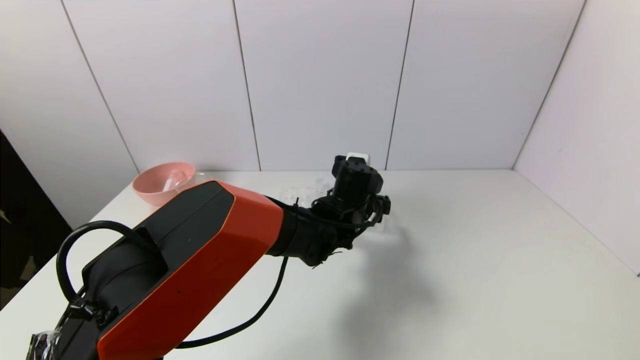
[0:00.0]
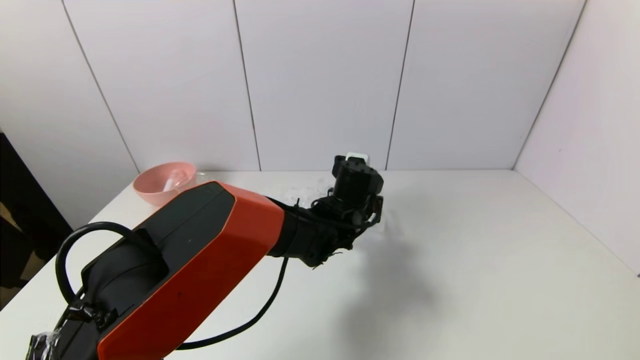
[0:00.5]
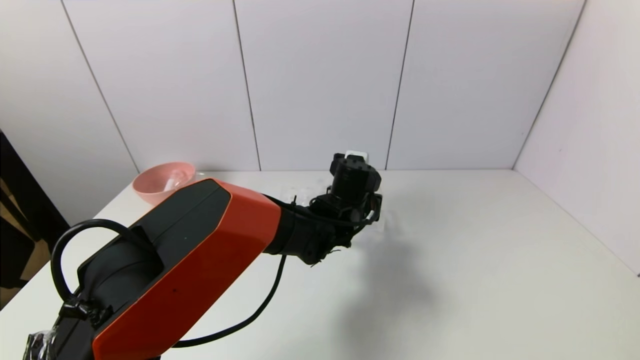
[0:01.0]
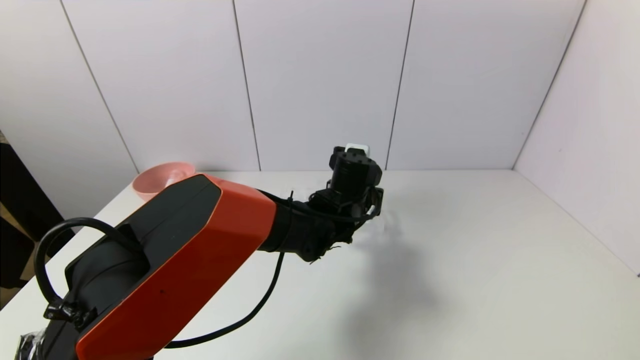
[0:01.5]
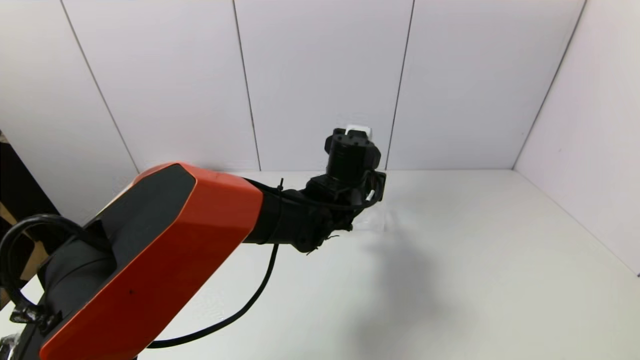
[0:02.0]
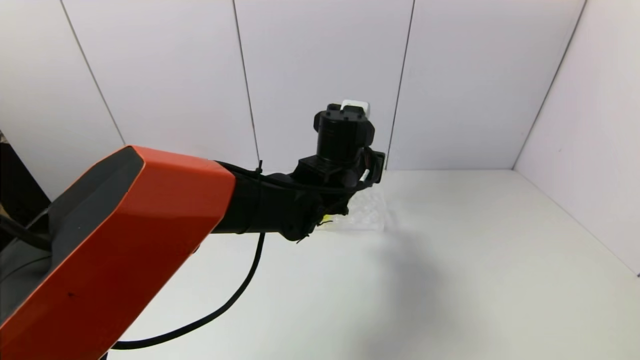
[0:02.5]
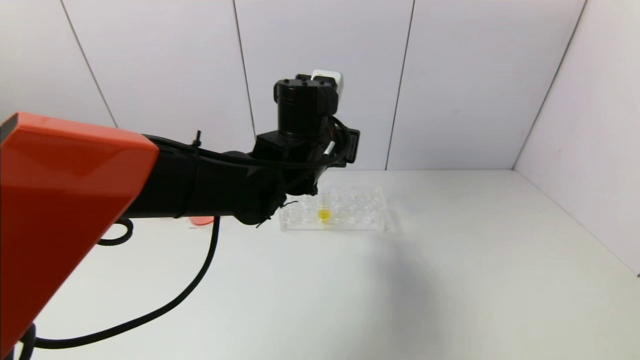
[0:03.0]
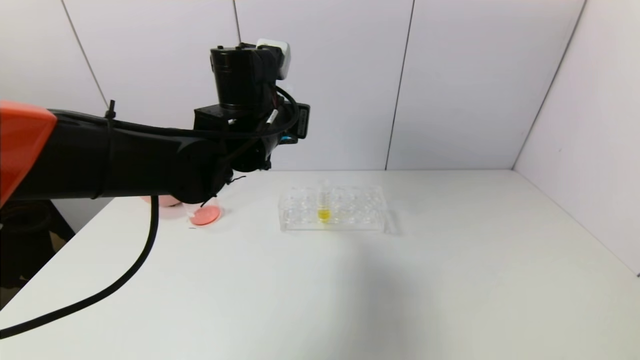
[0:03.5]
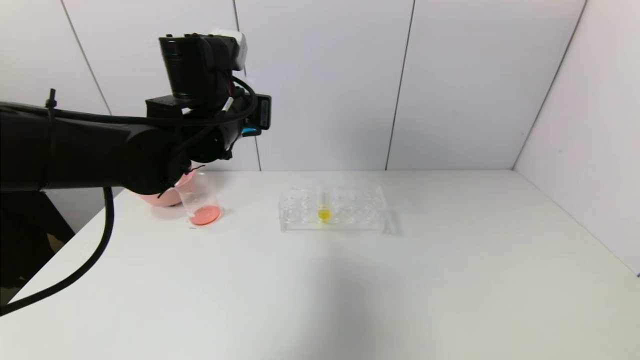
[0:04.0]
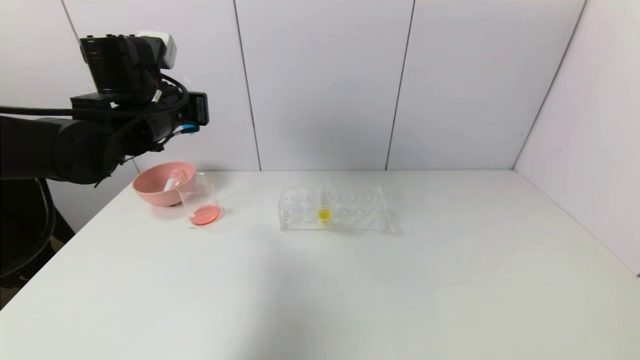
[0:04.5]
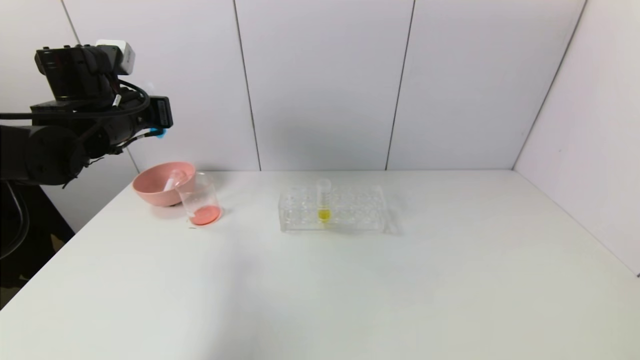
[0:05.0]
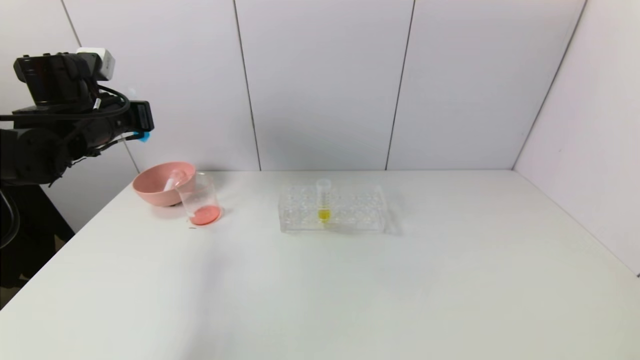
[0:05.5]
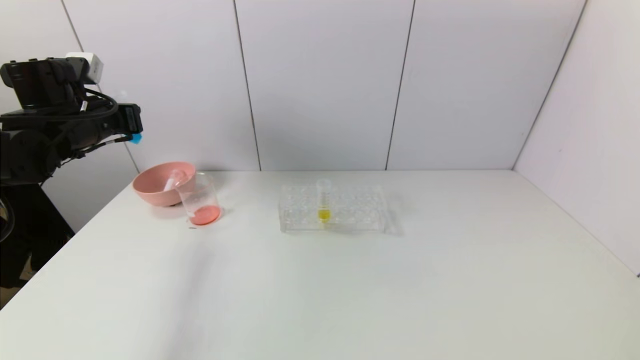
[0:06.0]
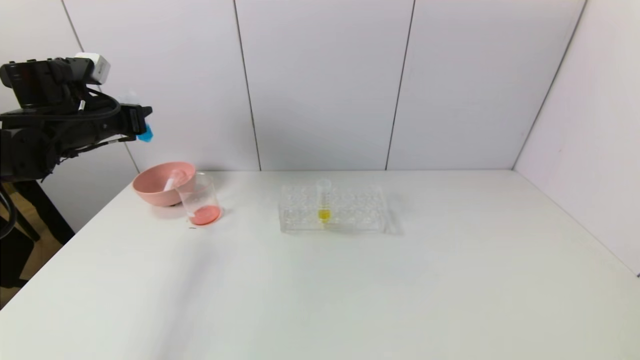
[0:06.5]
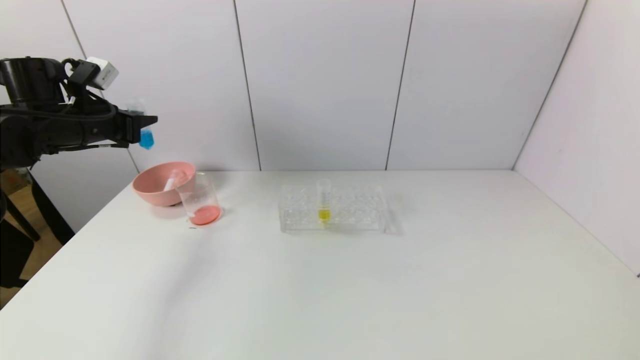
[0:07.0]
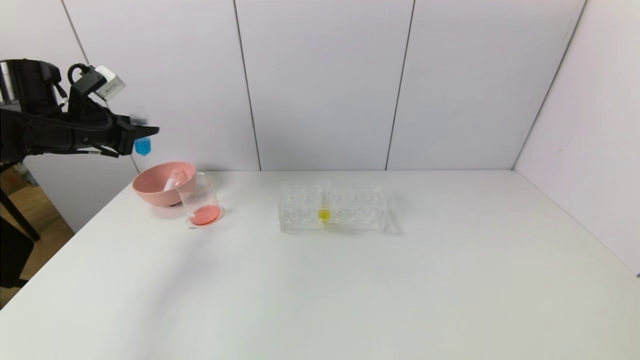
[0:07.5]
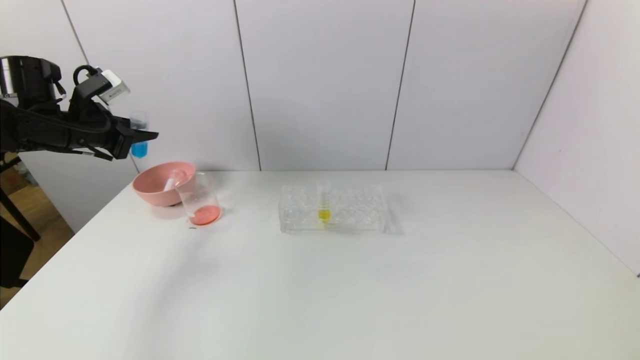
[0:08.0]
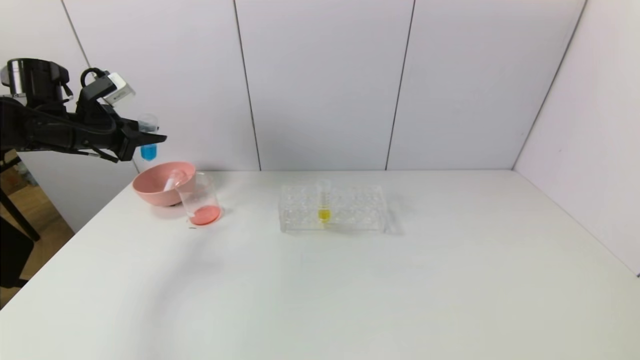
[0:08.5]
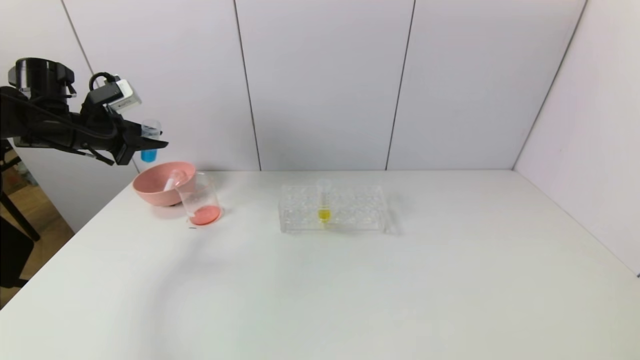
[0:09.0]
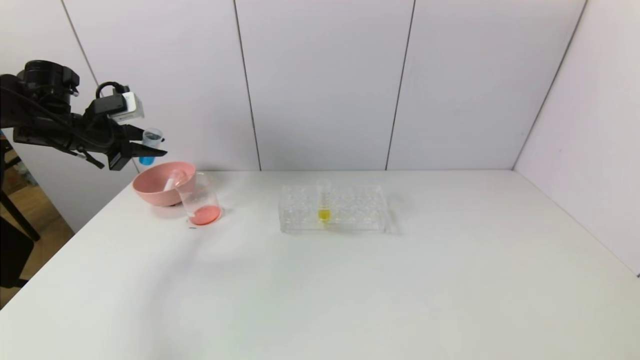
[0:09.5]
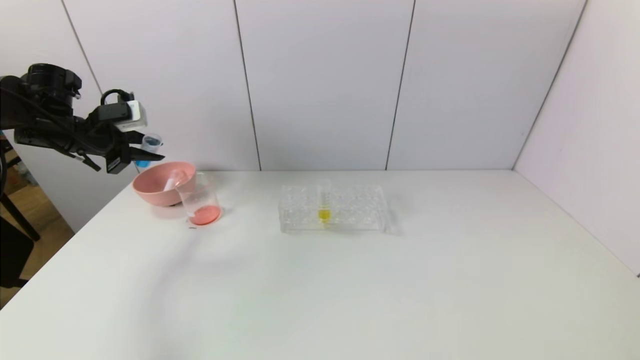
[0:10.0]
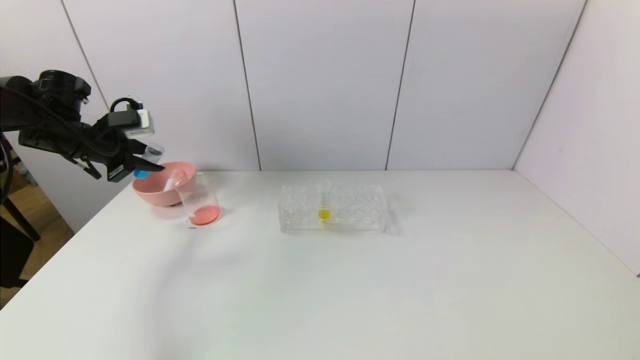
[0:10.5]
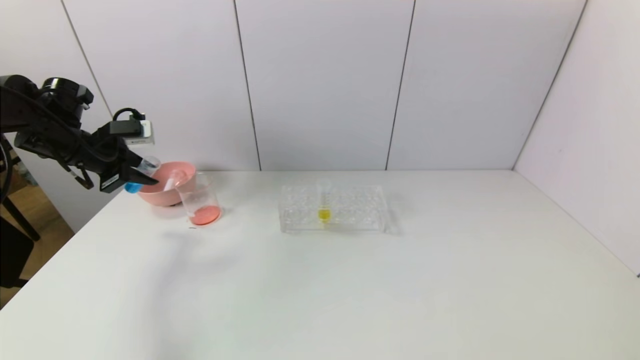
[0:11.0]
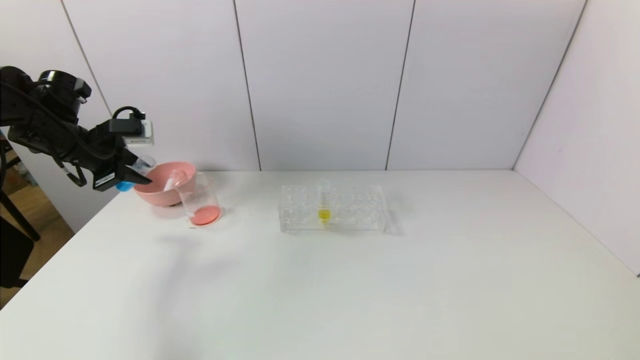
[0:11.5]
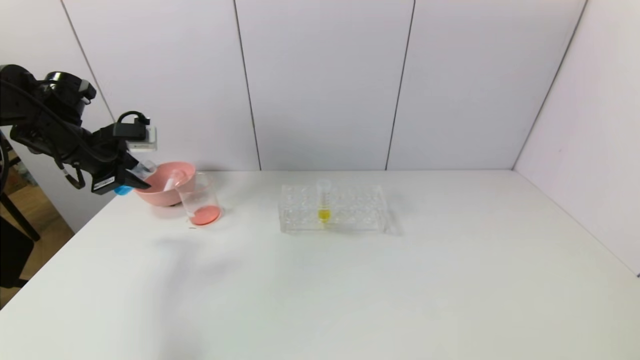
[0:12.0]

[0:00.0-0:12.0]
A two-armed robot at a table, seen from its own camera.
Task of the whole recording: pick up the test tube with red pigment and the test tube with blue pigment by grippers and pour them into the container.
0:00.0 to 0:02.0: The left gripper travels upward by about 5 cm, and closes its fingers.
0:02.0 to 0:04.0: The left gripper shifts roughly 20 cm to the left and upward.
0:04.0 to 0:06.0: The left gripper goes roughly 20 cm to the left.

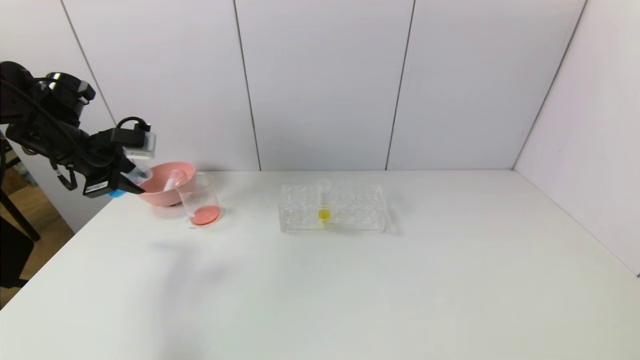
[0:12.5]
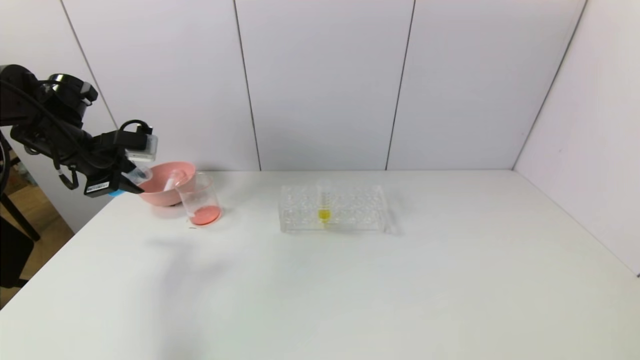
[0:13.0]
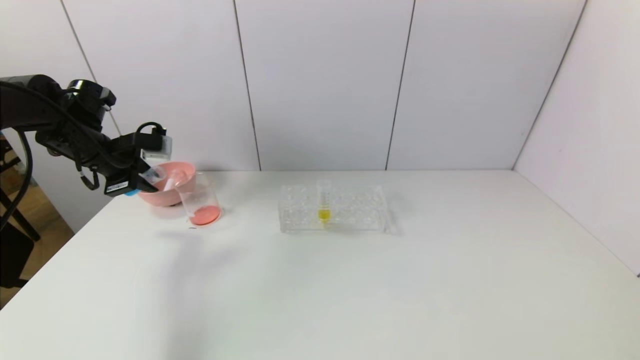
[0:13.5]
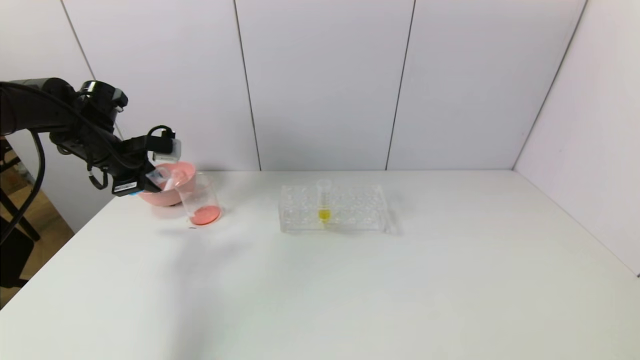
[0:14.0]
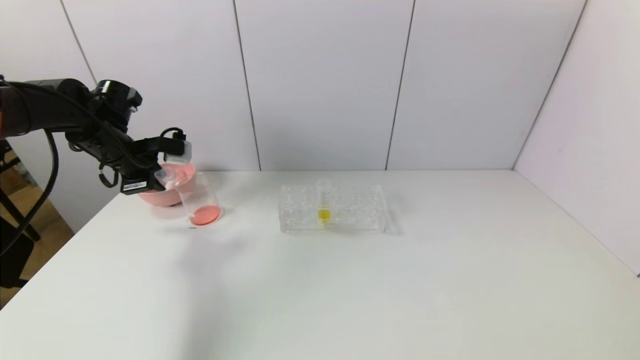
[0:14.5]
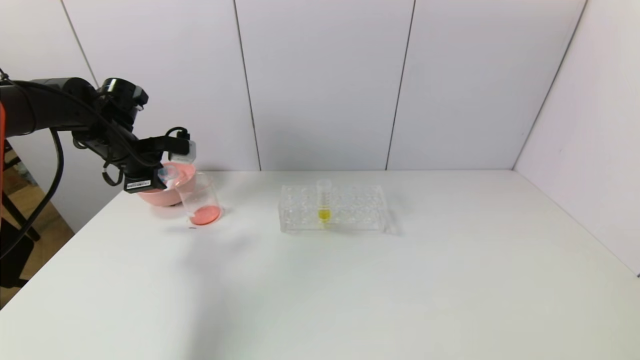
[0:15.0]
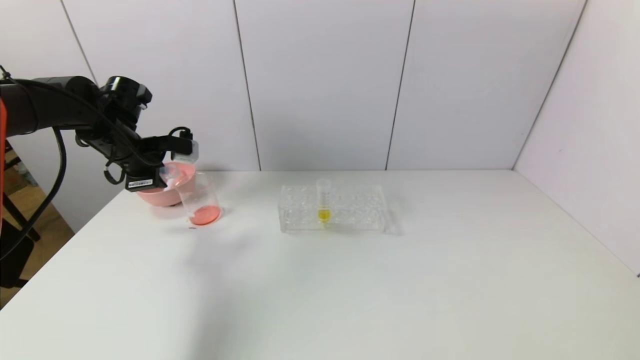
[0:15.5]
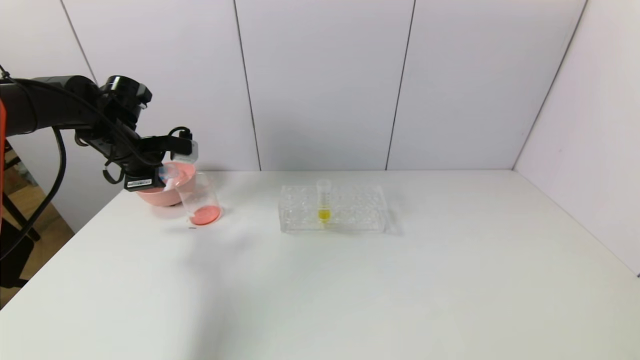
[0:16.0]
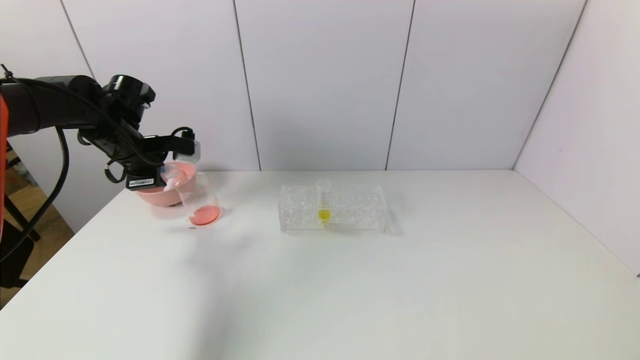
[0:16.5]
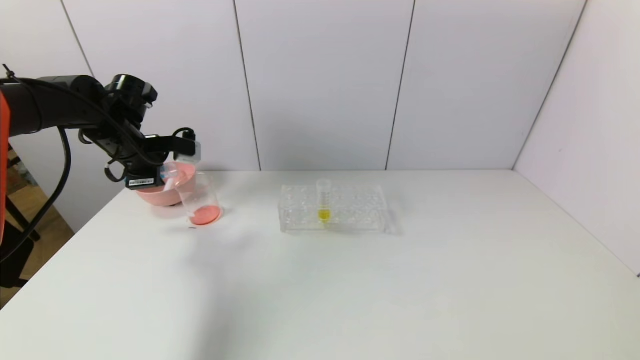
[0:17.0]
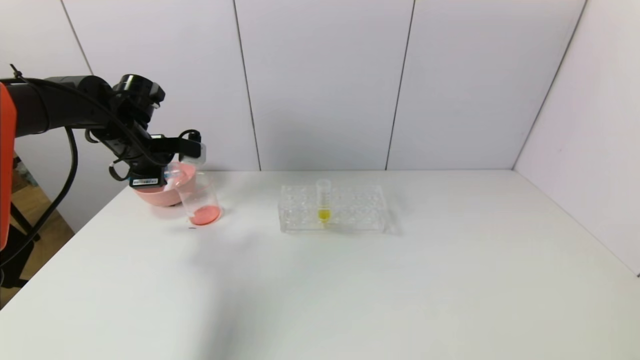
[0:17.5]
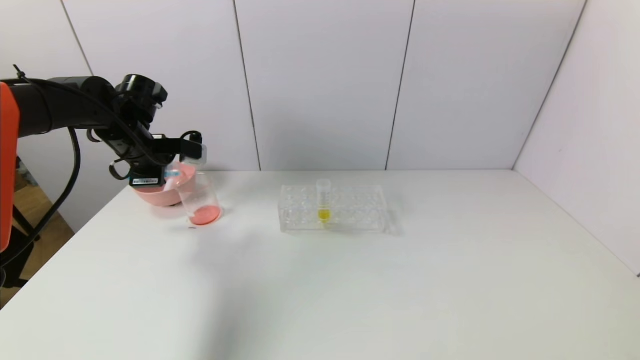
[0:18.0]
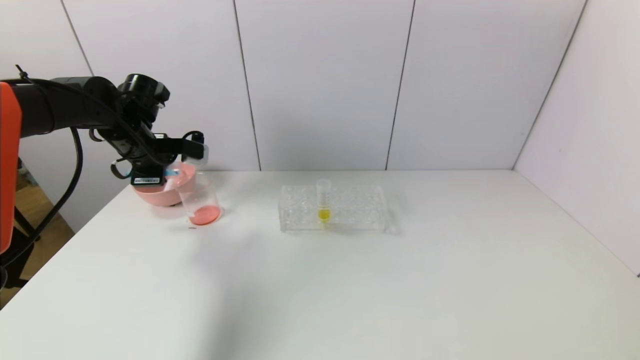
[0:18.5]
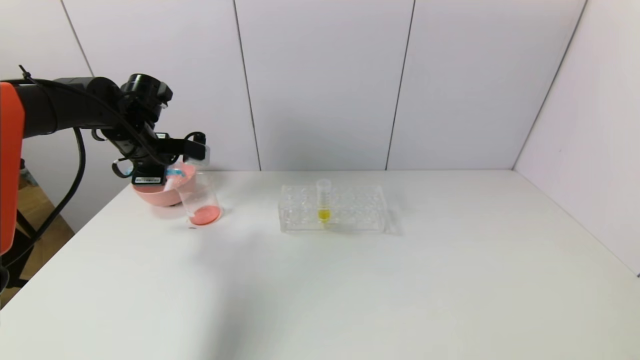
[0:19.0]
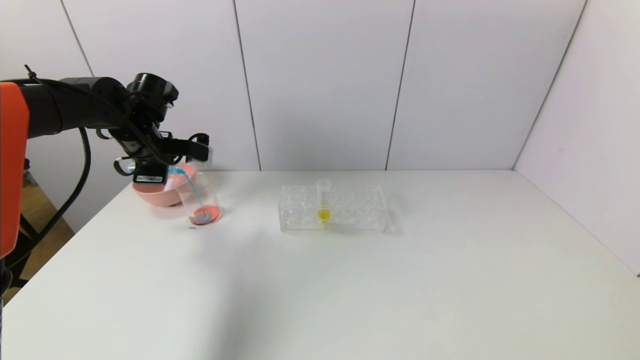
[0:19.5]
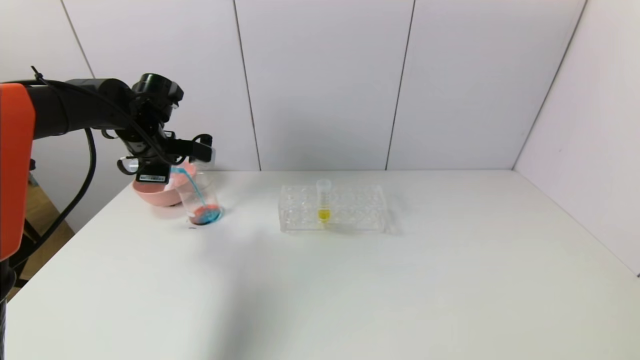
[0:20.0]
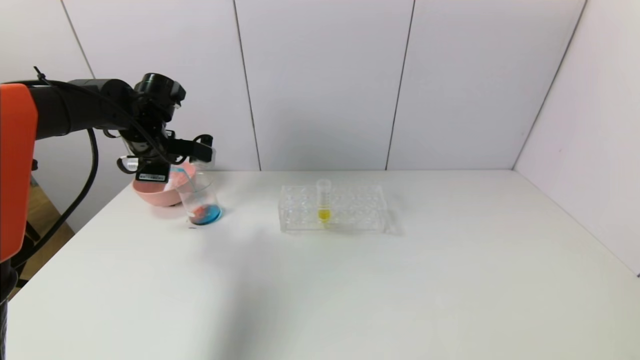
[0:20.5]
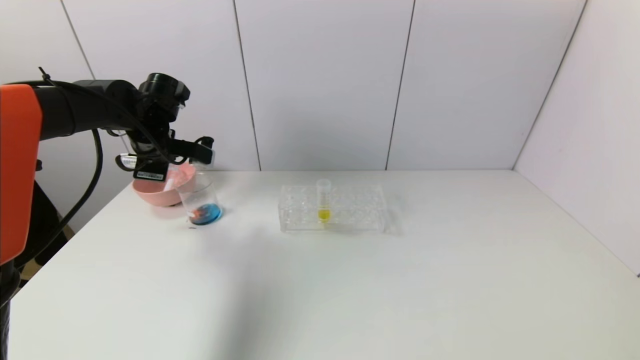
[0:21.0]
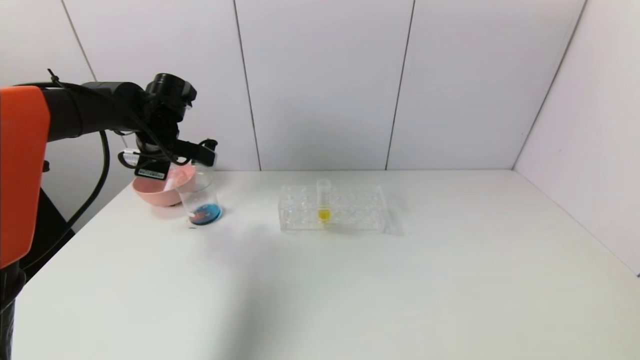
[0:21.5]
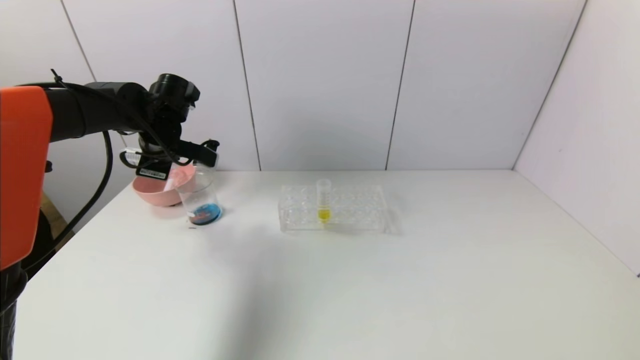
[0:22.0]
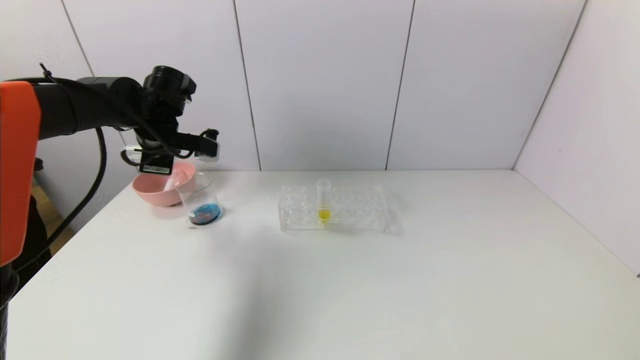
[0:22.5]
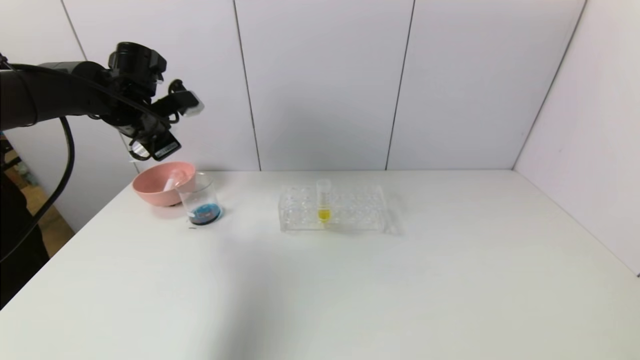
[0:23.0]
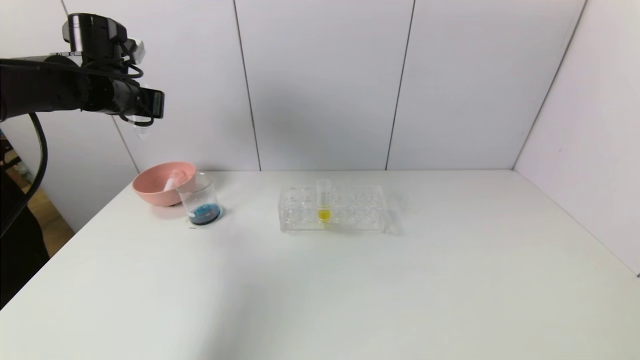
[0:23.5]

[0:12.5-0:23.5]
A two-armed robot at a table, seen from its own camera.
Task of the whole recording: pick up the test tube with red pigment and the test tube with blue pigment by grippers and pour them into the container.
Step, 0:12.5 to 0:22.5: Pour the blue reagent into the graduated cylinder with the left gripper.
0:12.5 to 0:14.5: The left gripper changes place by approximately 5 cm.
0:14.5 to 0:18.0: The grippers move only a little.
0:18.0 to 0:20.0: The grippers stay close to where they were, moving slightly.
0:20.0 to 0:21.5: There are only small adjustments of the grippers.
0:21.5 to 0:23.5: The left gripper travels upward by approximately 5 cm.
